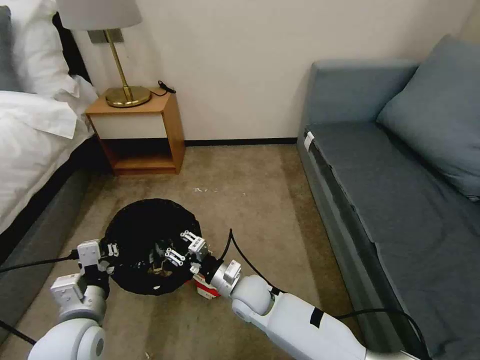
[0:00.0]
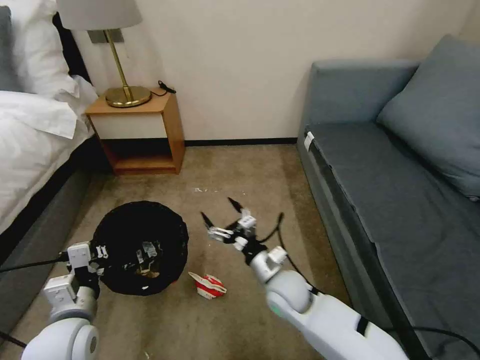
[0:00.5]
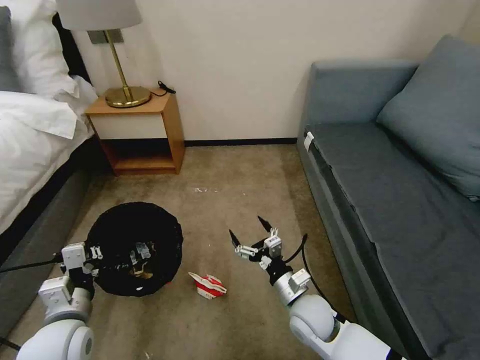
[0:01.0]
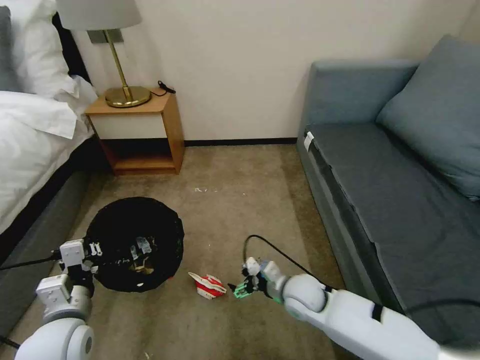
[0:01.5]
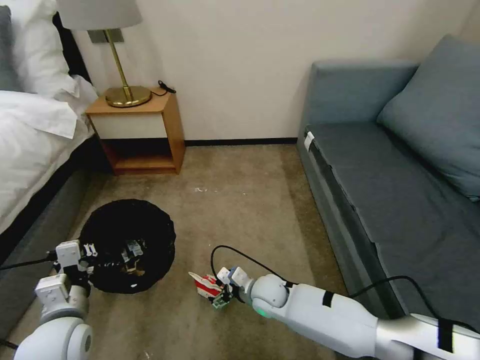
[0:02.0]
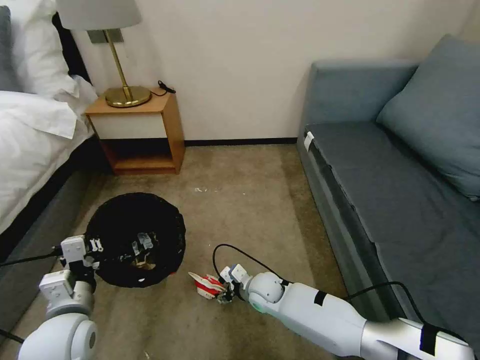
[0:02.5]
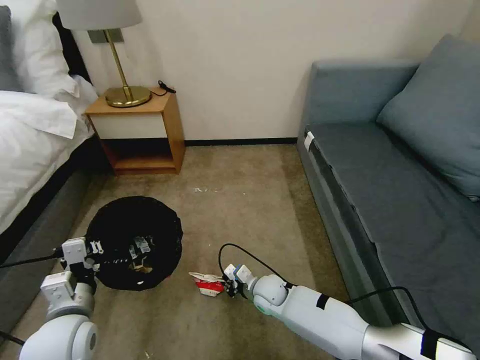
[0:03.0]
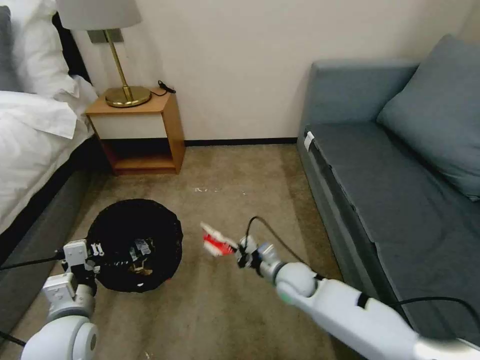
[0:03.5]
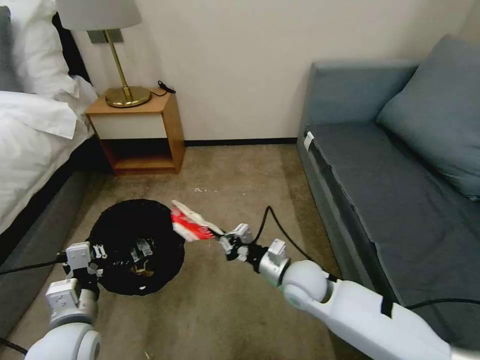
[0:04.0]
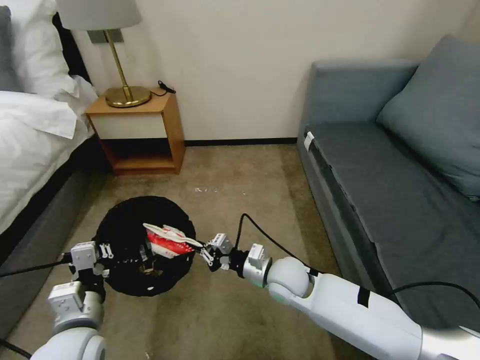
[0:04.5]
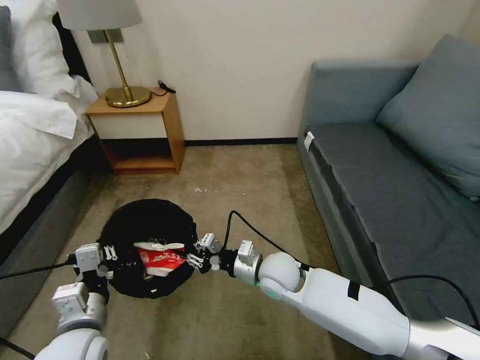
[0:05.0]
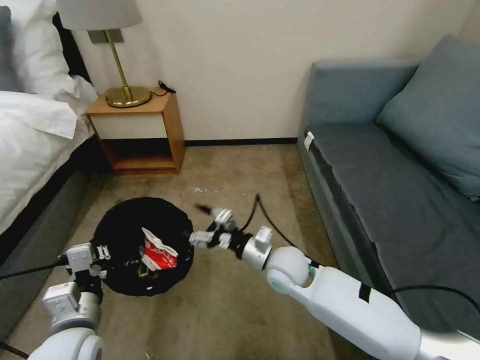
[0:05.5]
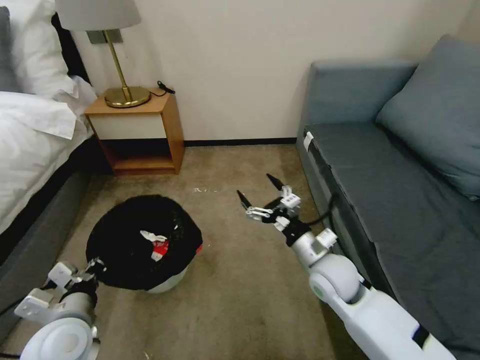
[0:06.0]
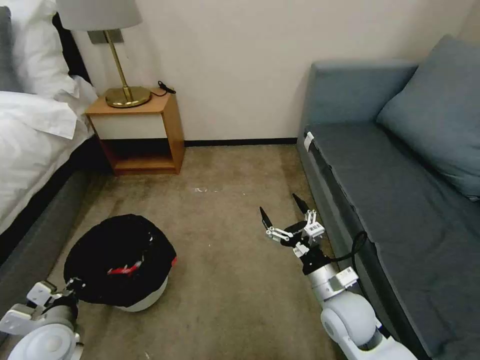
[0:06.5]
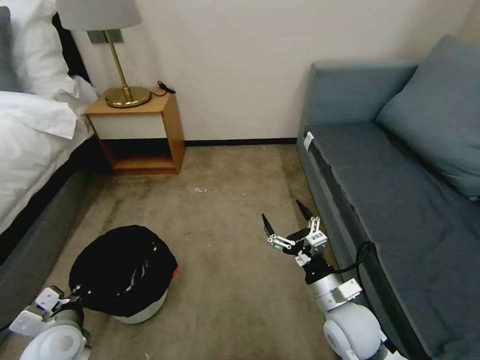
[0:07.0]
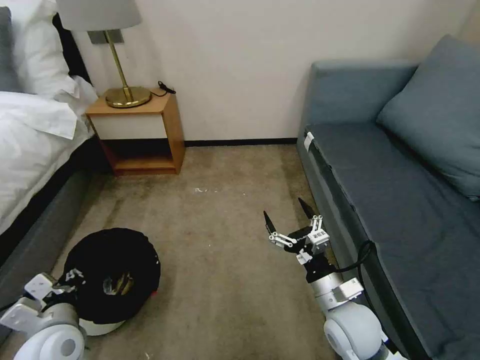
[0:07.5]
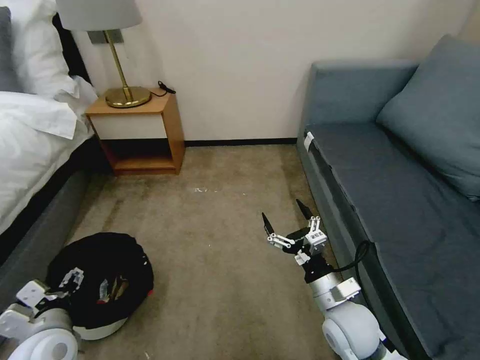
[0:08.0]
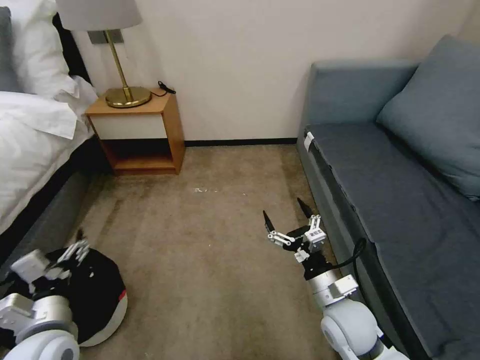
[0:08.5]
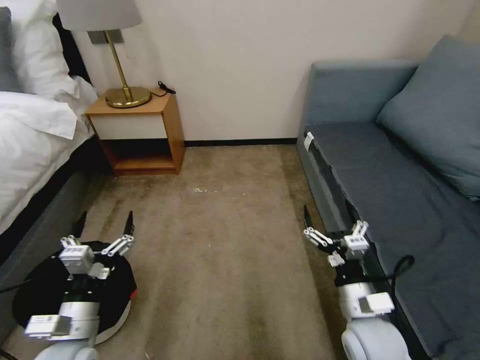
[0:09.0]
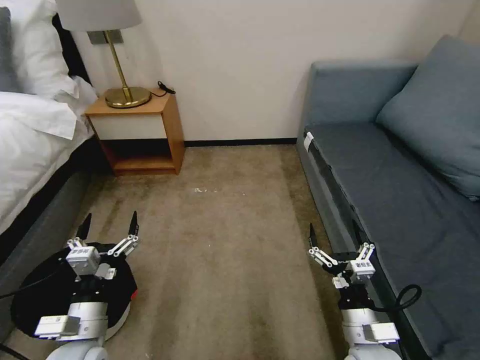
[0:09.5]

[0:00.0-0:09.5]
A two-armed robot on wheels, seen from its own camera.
Task of the whole recording: Pick up the trash bin, then pick up the garbage on the floor and place it into the trash bin.
0:00.0 to 0:02.0: The right gripper moves to the right, some 5 cm, and opens.
0:02.0 to 0:04.0: The right gripper is displaced upward and to the right by some 15 cm, and closes.
0:04.0 to 0:05.5: The right gripper changes place by about 5 cm, and opens.
0:05.5 to 0:07.5: The left gripper is displaced to the left by roughly 5 cm; the right gripper goes approximately 15 cm backward and to the right.
0:07.5 to 0:09.5: The left gripper moves to the right, some 5 cm, and opens. Meanwhile the right gripper is displaced backward by approximately 5 cm.

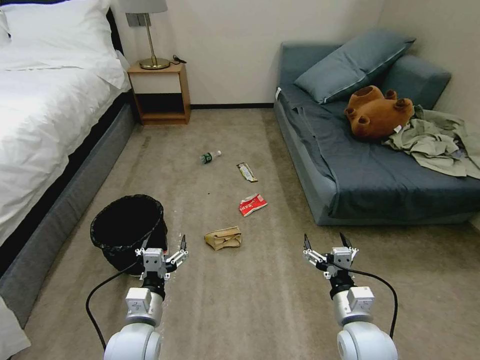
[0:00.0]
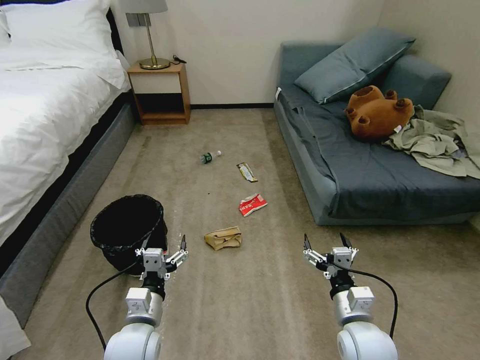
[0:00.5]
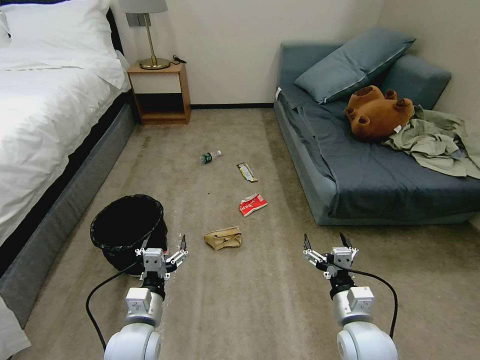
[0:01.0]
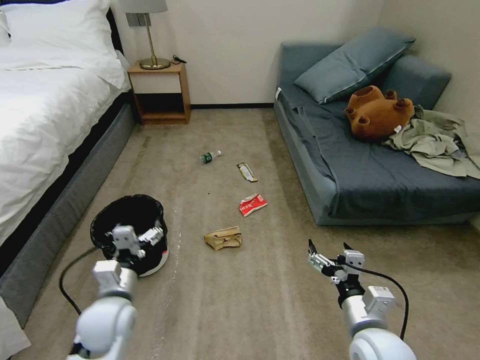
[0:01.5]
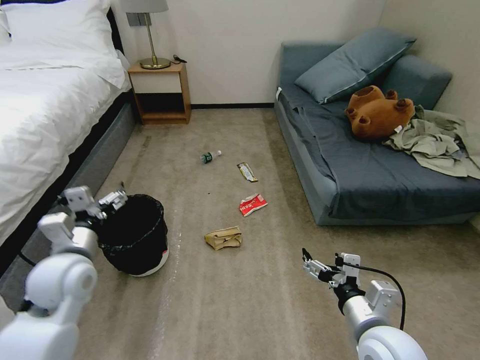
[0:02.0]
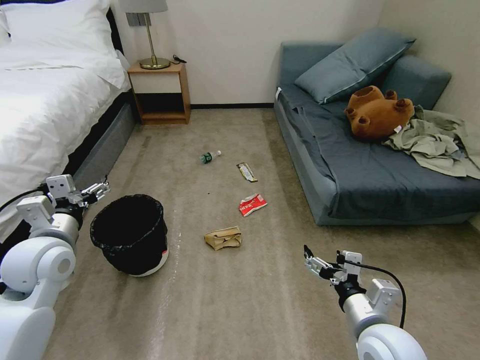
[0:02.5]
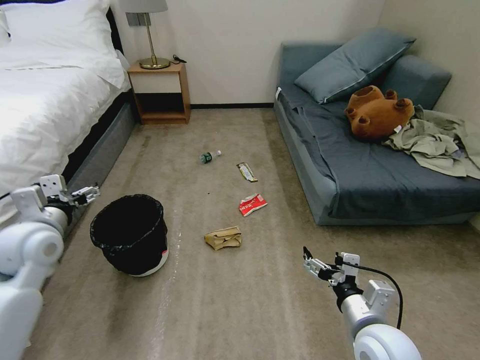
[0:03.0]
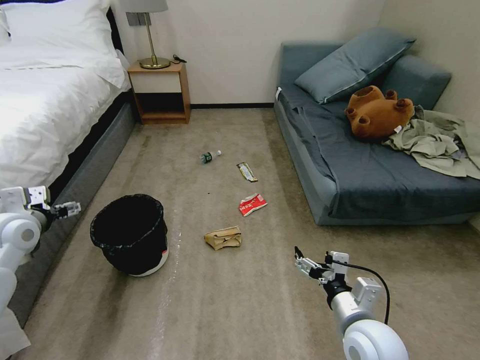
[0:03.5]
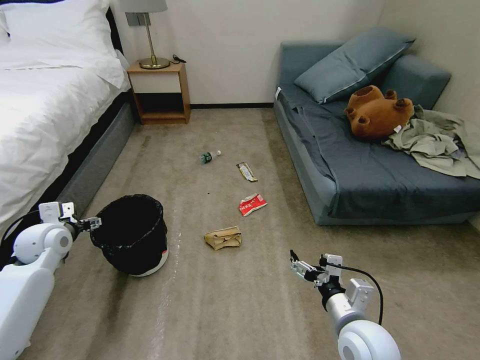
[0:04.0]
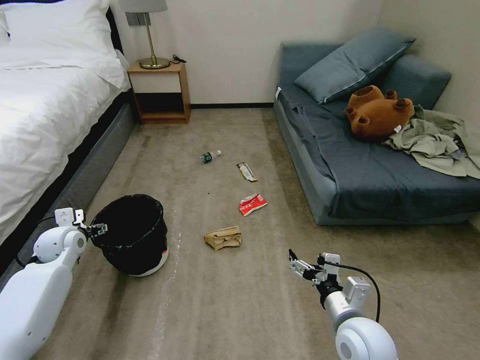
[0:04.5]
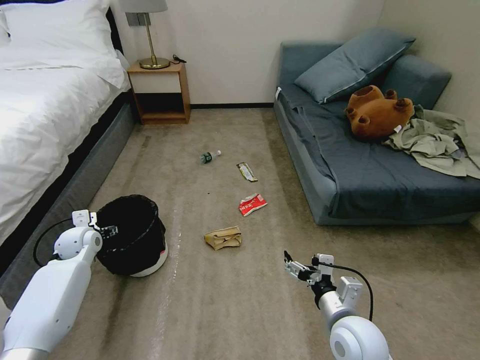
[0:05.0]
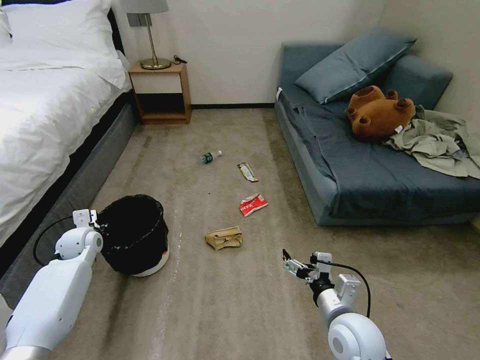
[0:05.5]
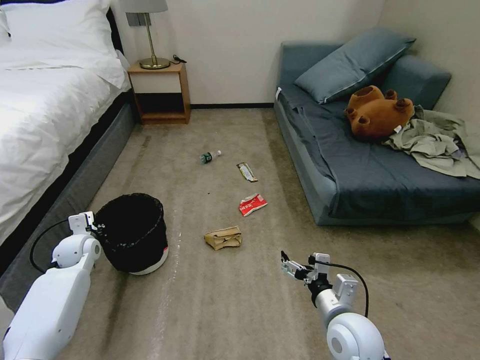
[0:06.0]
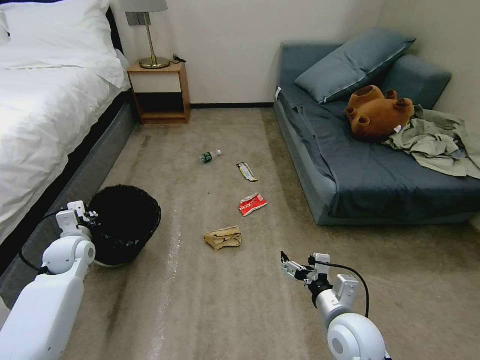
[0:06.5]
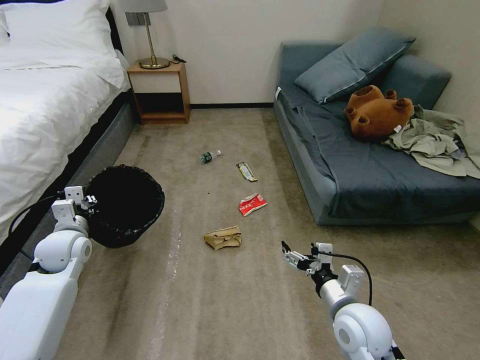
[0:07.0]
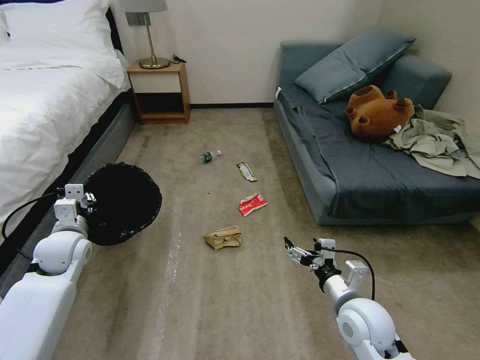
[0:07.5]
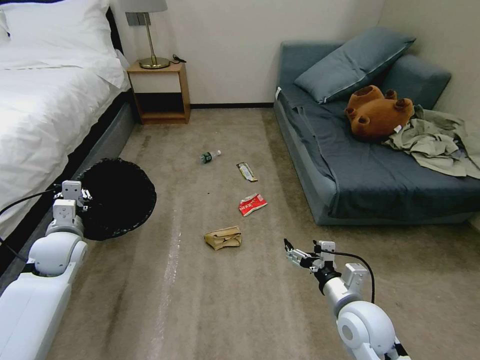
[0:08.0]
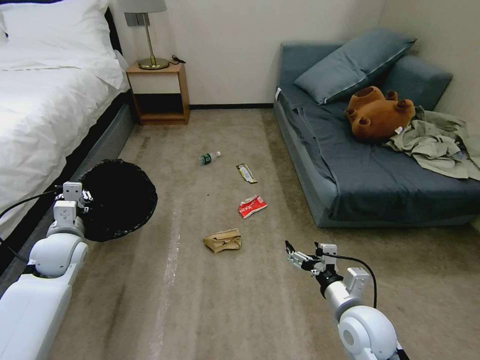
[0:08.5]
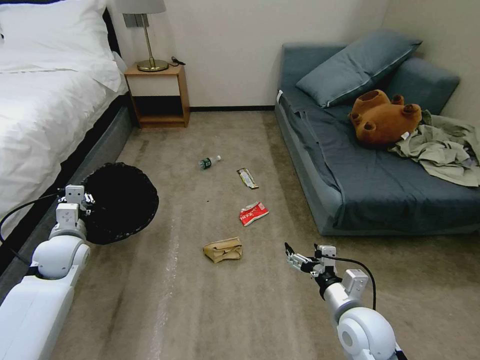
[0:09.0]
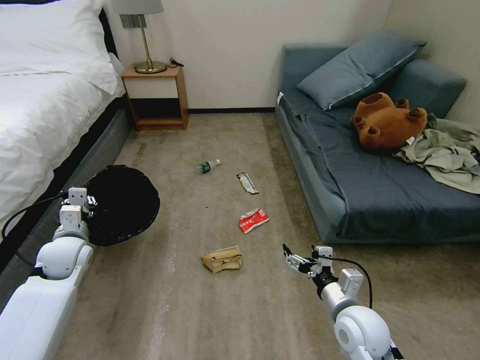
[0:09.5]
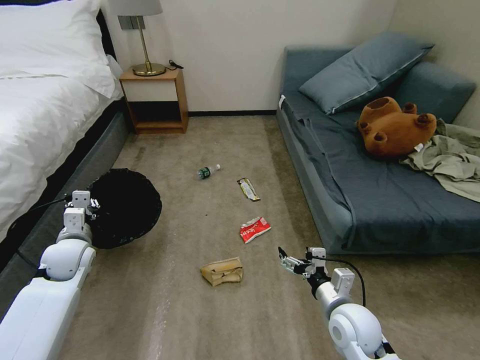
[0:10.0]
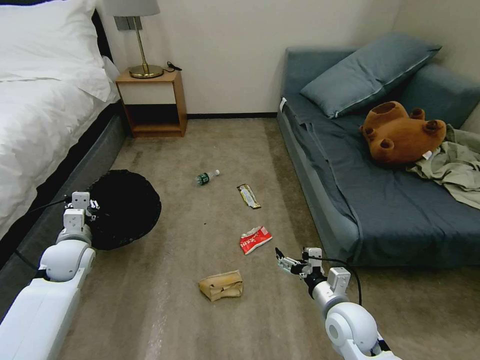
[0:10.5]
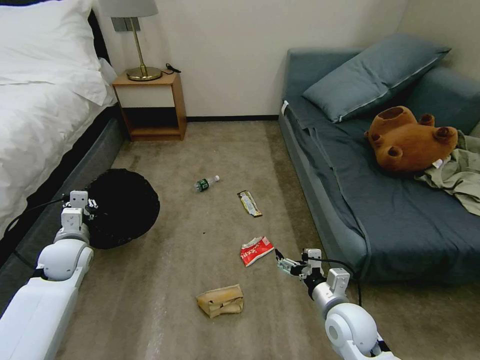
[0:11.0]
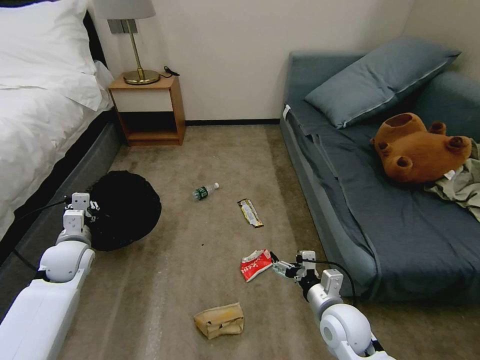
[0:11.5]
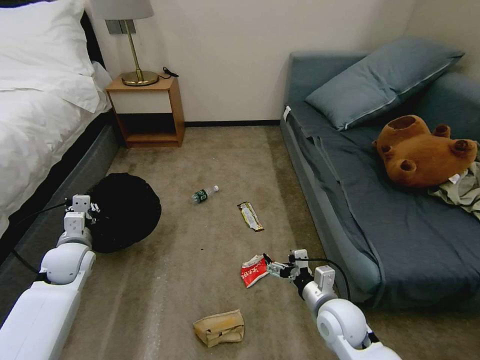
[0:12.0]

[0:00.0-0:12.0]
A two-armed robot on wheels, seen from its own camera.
Task of the whole recording: Pick up the trash bin, then pick up the garbage on the floor and place it into the trash bin.
0:02.0 to 0:04.0: The left gripper travels to the left and forward by approximately 15 cm.
0:04.0 to 0:06.0: The left gripper is displaced downward by approximately 10 cm, and closes.
0:06.0 to 0:08.0: The left gripper heads upward, covering roughly 10 cm.

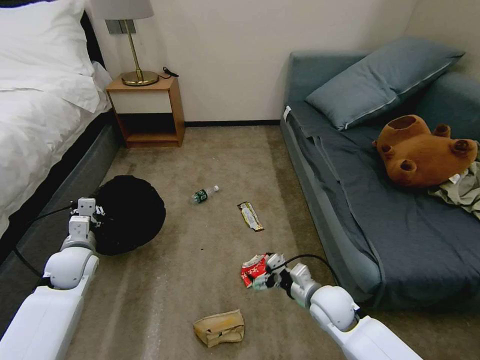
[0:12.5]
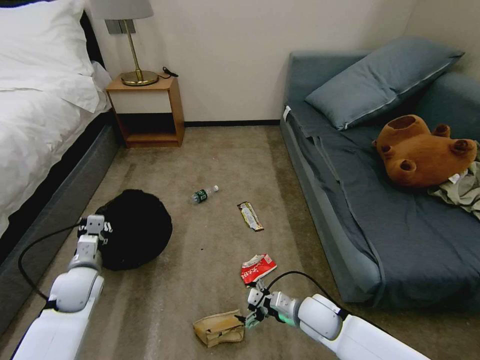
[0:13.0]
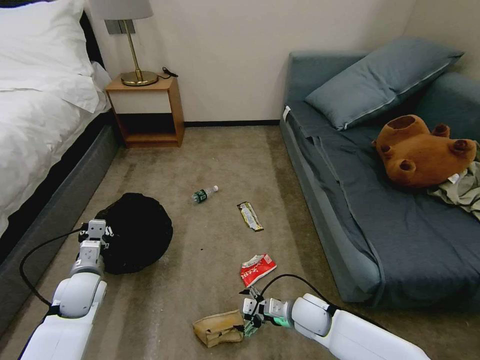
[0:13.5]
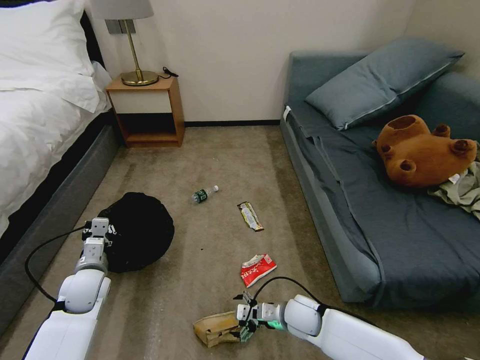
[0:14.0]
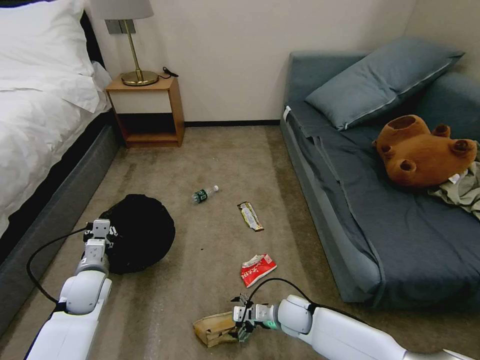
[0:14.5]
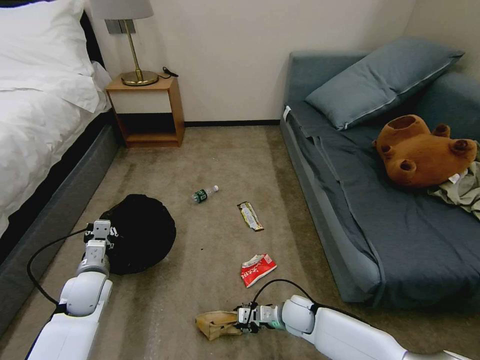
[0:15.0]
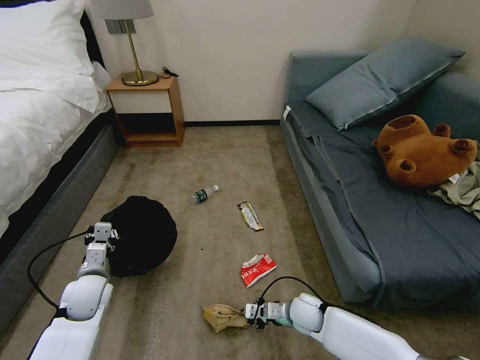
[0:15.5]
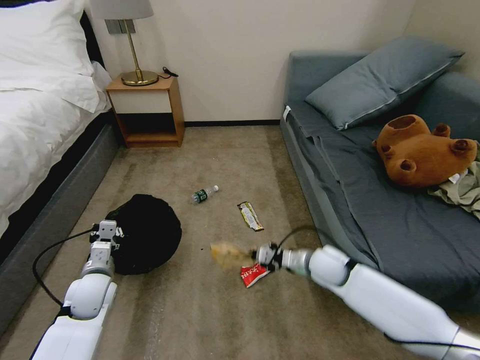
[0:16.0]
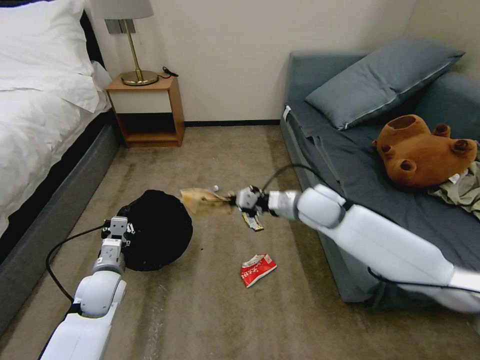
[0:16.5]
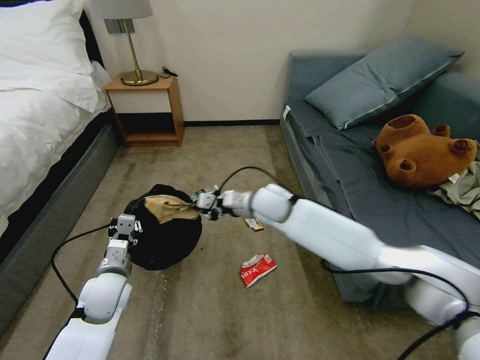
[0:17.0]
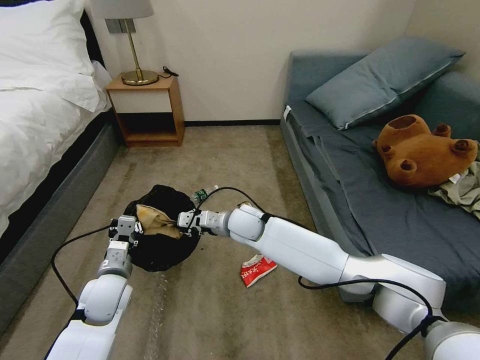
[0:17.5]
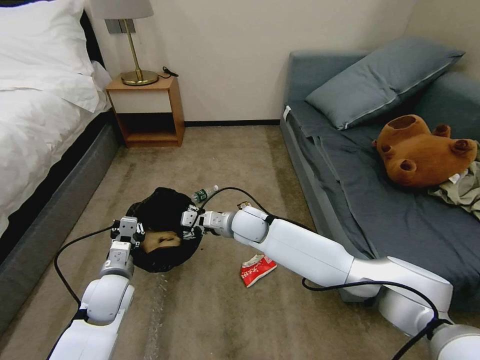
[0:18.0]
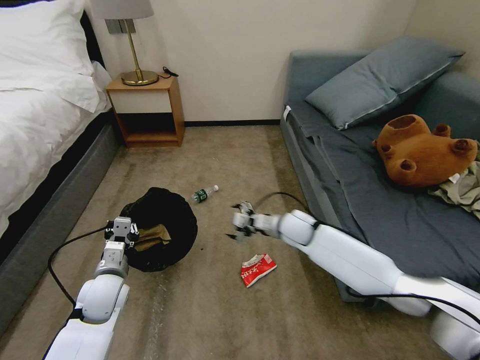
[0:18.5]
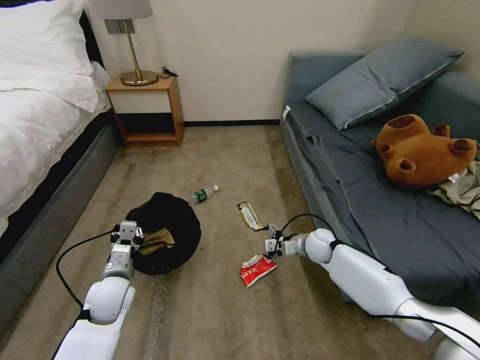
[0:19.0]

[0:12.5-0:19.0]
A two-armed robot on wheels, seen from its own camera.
Task of the whole recording: Pick up the trash bin, then pick up the garbage on the floor and place it into the trash bin.
0:12.5 to 0:14.5: The right gripper travels downward and to the left by roughly 10 cm; the left gripper changes place by approximately 5 cm.
0:14.5 to 0:17.0: The right gripper moves upward and forward, some 30 cm, and closes, while the left gripper travels to the right by about 5 cm.
0:17.0 to 0:19.0: The right gripper heads to the right and downward, covering some 25 cm, and opens up.
